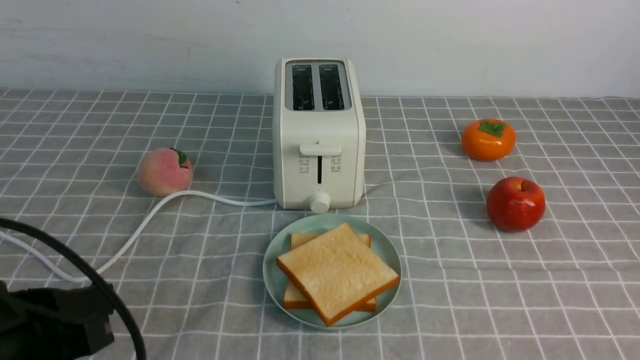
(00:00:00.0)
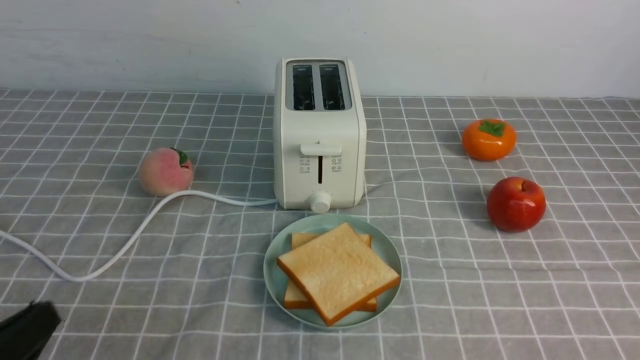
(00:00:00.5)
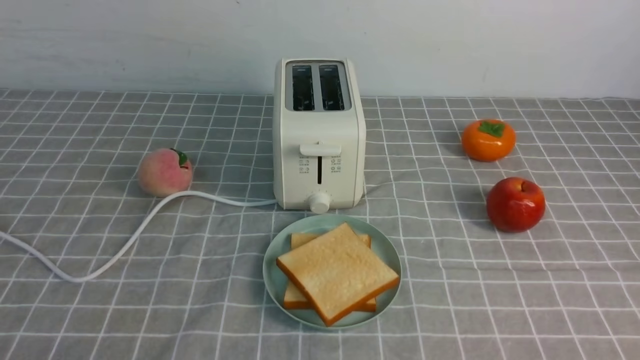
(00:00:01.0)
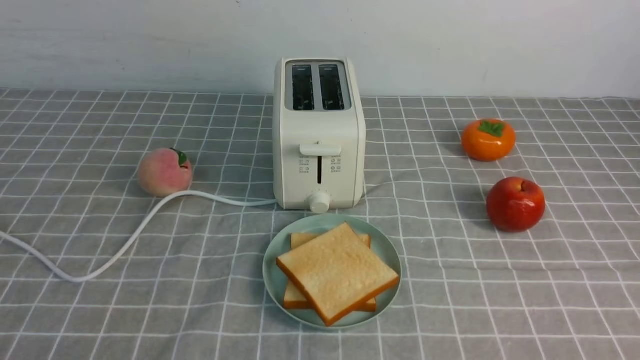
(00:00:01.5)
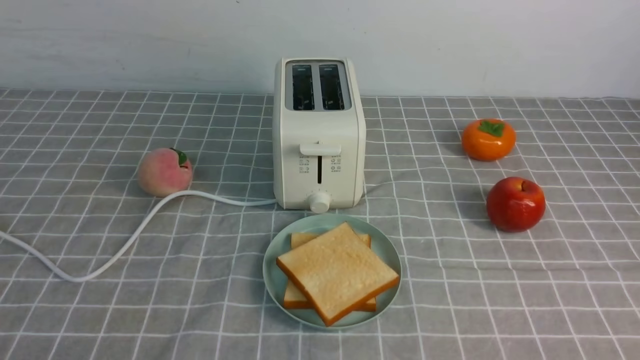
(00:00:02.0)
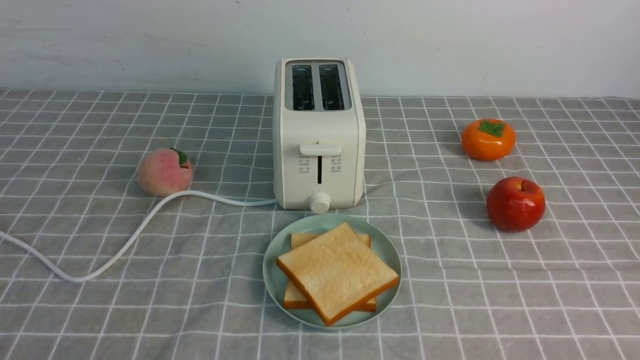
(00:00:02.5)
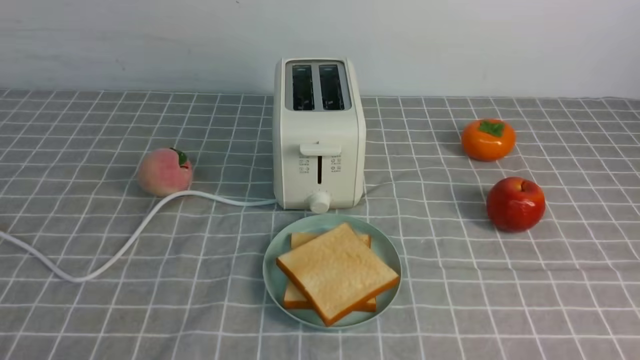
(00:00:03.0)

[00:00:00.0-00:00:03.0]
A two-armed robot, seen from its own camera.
Task of the whole recording: take toasted bread from bread machine on grey coffee table place on plate.
00:00:00.0 to 00:00:01.5: The left gripper heads downward, backward and to the left, covering about 15 cm.
